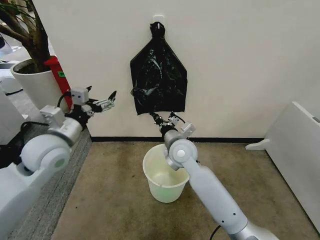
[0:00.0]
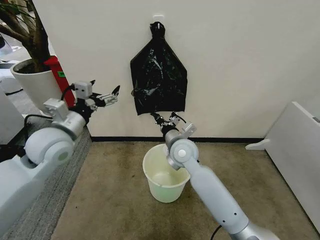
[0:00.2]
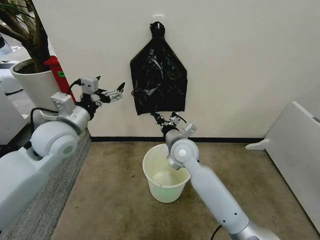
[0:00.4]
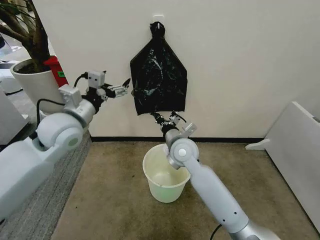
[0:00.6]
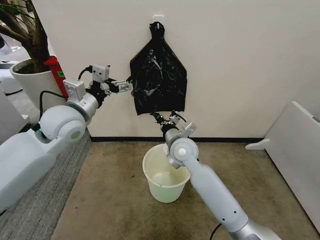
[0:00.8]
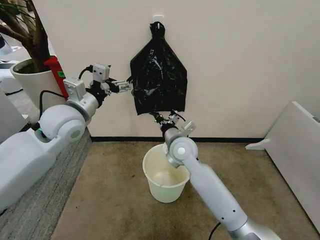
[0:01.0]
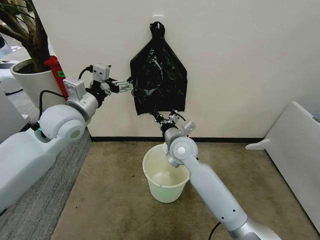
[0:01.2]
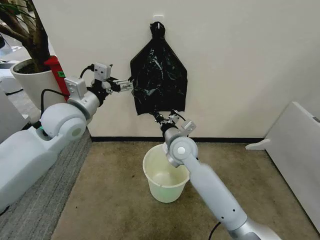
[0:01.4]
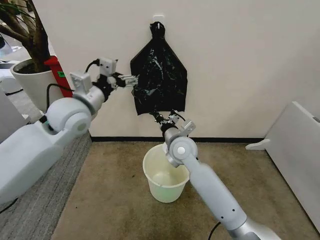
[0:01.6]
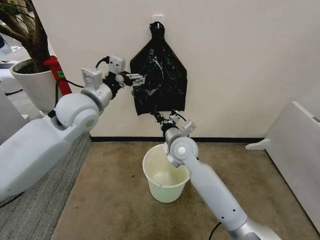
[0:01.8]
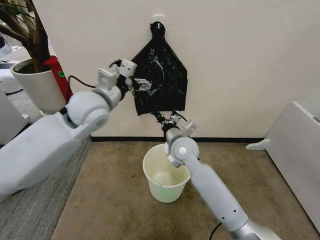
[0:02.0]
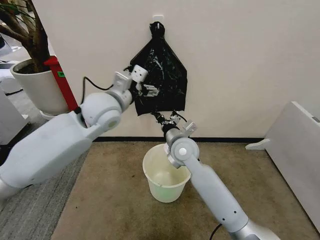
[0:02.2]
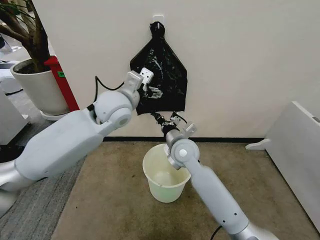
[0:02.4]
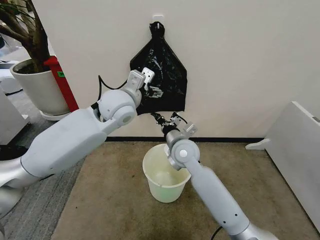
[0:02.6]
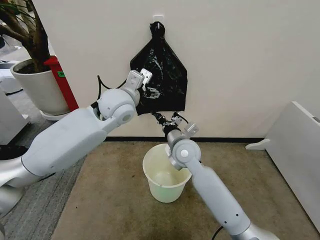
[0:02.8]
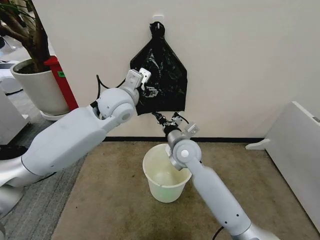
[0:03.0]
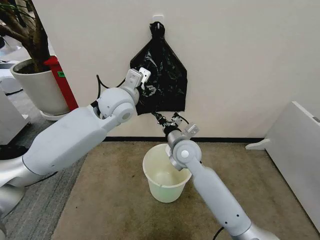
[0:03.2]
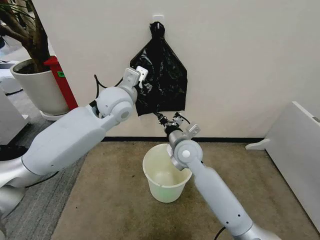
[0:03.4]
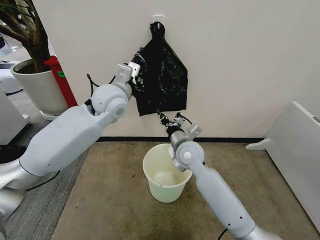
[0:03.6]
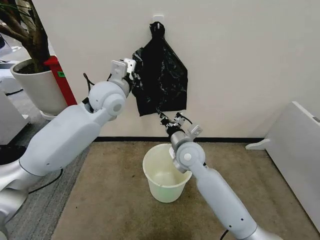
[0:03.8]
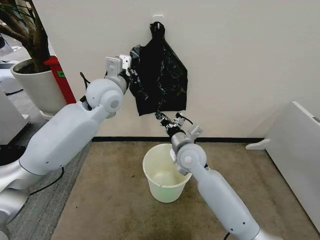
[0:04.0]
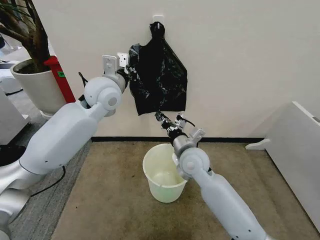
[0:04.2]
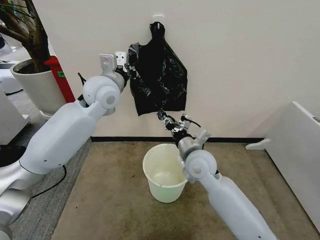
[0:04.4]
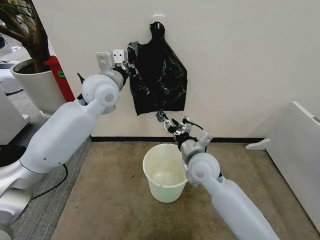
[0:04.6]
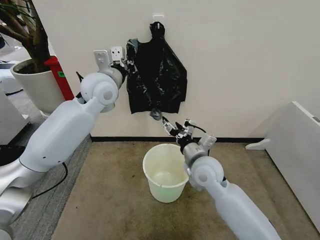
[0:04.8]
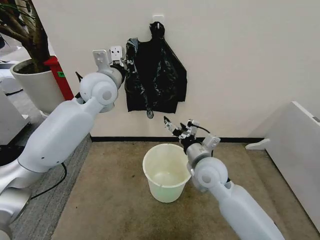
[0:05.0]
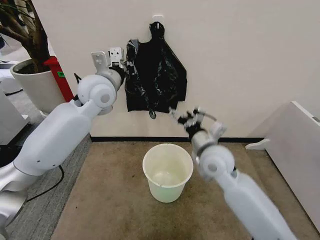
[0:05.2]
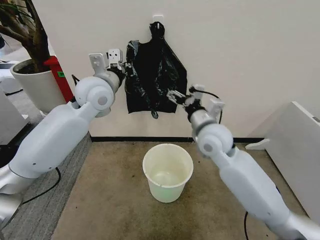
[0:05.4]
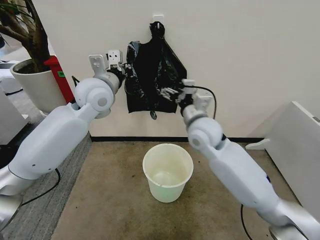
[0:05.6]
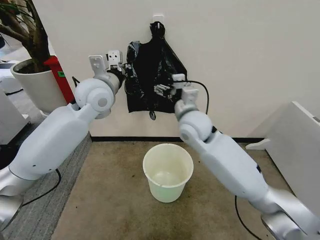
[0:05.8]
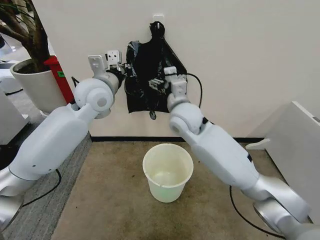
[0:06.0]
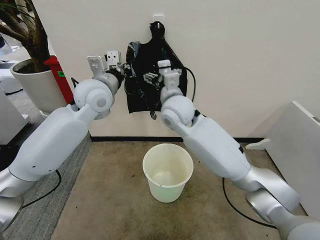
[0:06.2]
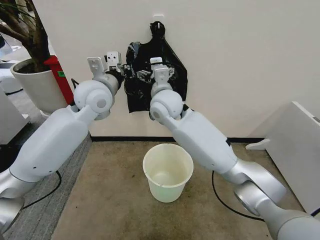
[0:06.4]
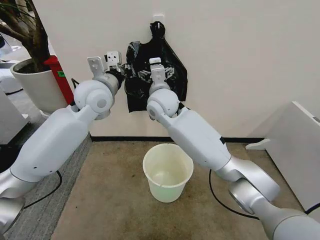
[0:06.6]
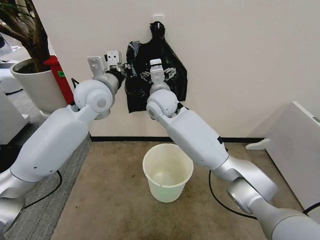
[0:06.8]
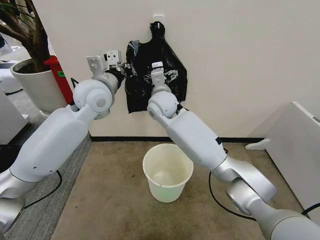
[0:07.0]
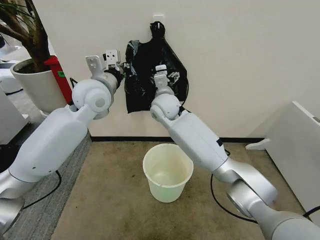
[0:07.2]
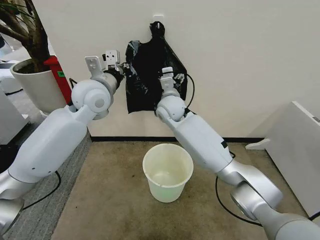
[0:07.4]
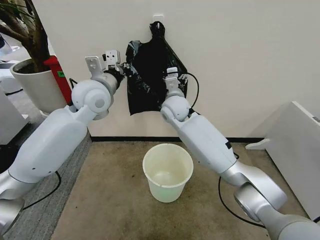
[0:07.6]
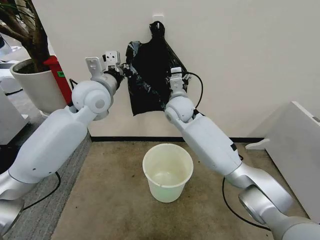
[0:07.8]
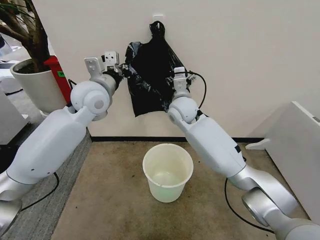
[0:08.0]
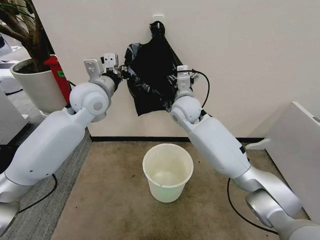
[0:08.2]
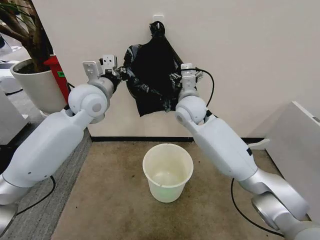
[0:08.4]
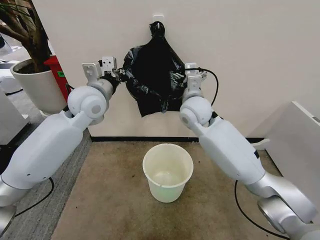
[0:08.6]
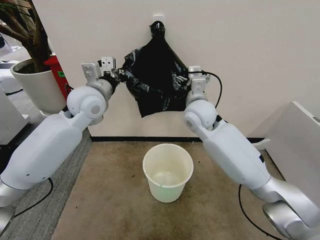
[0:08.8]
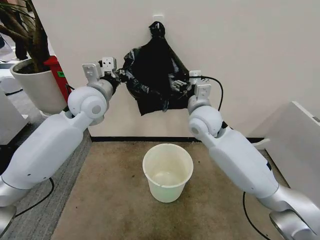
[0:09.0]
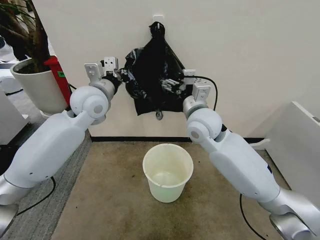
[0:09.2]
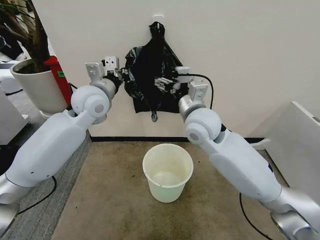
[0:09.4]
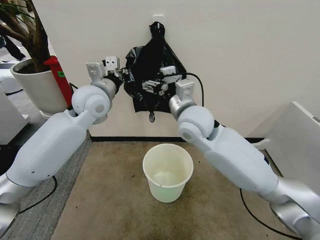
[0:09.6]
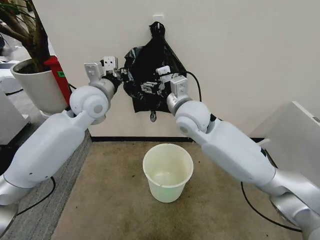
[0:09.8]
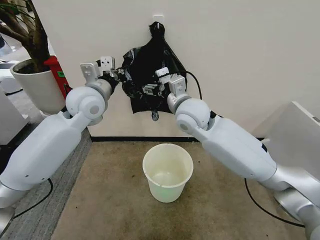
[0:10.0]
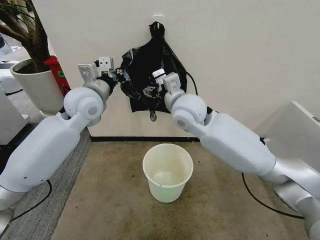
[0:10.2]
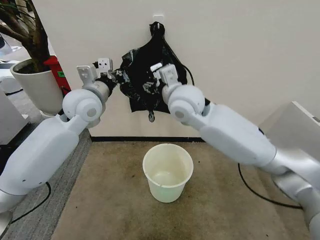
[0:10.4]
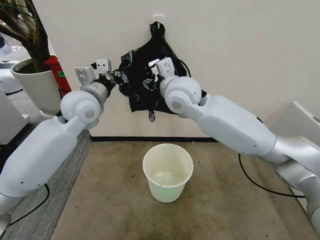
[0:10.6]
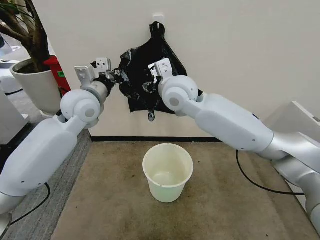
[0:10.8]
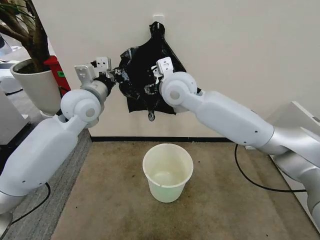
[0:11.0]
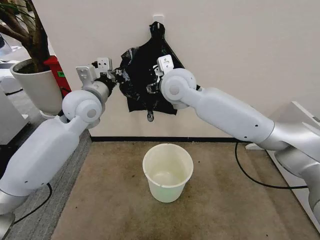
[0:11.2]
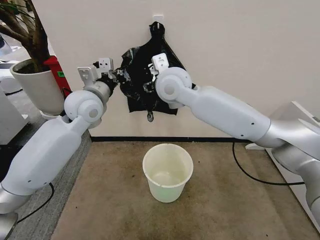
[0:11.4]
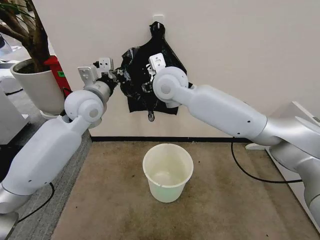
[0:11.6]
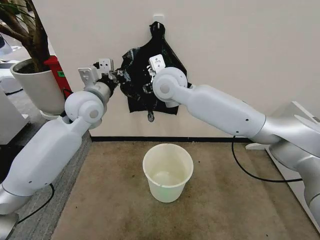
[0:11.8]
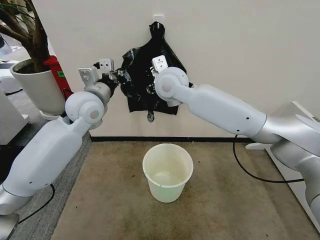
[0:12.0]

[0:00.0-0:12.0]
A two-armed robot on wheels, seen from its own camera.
Task of the whole recording: Place the garbage bag over the trash bin.
0:00.0 to 0:01.6: The left gripper moves forward, upward and to the right, approximately 10 cm.
0:01.6 to 0:03.0: The left gripper heads to the right, covering some 10 cm.
0:03.0 to 0:04.4: The left gripper shifts by about 5 cm, and closes up; the right gripper moves roughly 5 cm.
0:04.4 to 0:06.0: The right gripper heads upward and forward, covering some 15 cm, and opens.
0:06.0 to 0:07.6: The right gripper is displaced forward by some 10 cm.
0:07.6 to 0:09.0: The right gripper shifts approximately 10 cm backward and to the right.
0:09.0 to 0:10.4: The right gripper shifts some 10 cm upward and to the left.
0:10.4 to 0:12.0: The right gripper travels forward by some 5 cm.

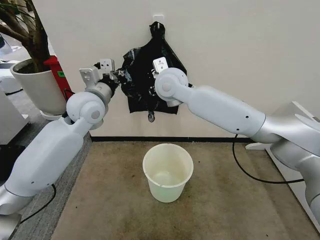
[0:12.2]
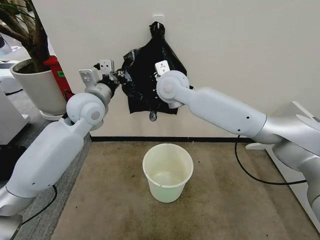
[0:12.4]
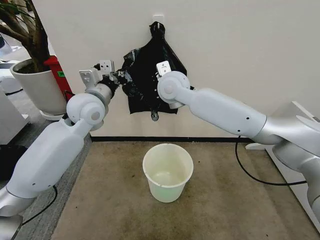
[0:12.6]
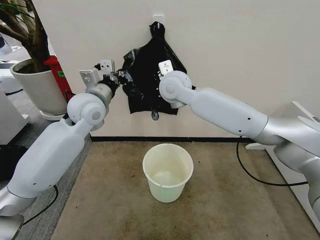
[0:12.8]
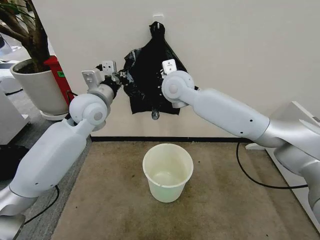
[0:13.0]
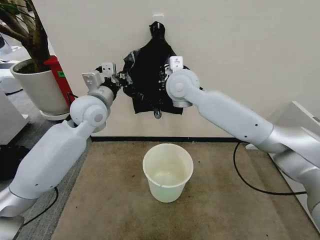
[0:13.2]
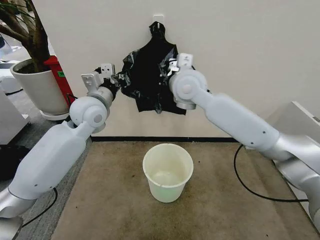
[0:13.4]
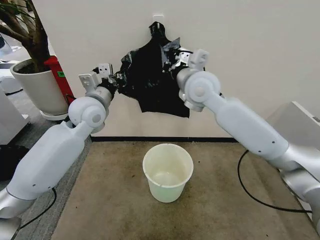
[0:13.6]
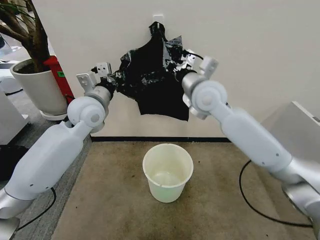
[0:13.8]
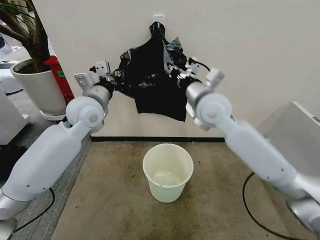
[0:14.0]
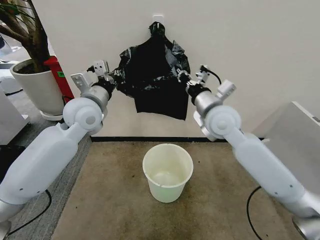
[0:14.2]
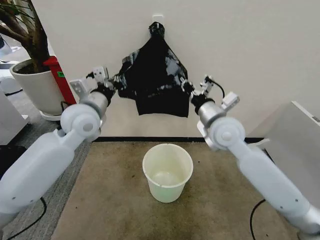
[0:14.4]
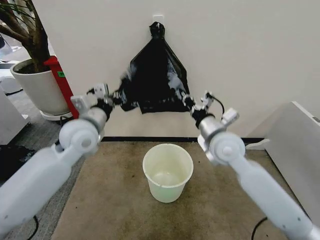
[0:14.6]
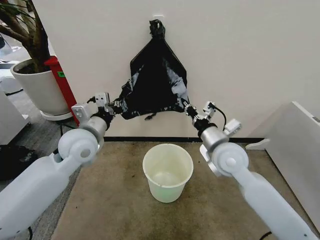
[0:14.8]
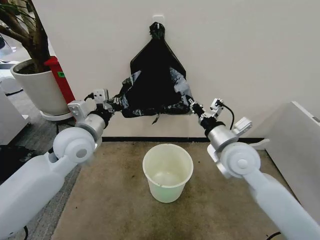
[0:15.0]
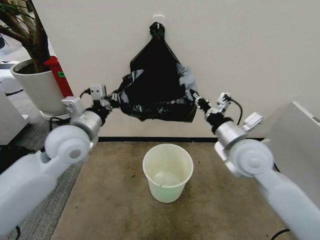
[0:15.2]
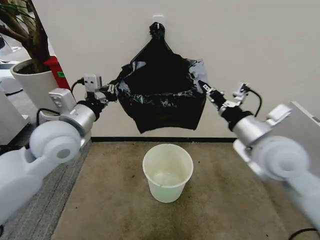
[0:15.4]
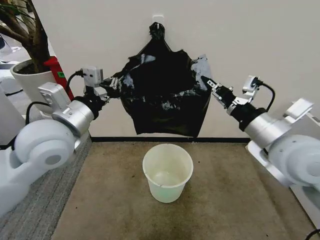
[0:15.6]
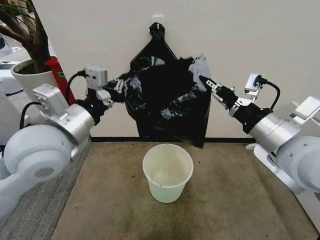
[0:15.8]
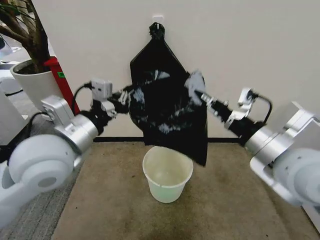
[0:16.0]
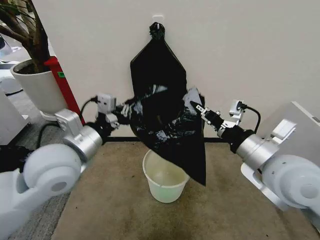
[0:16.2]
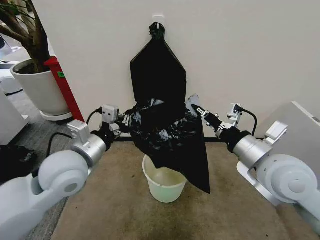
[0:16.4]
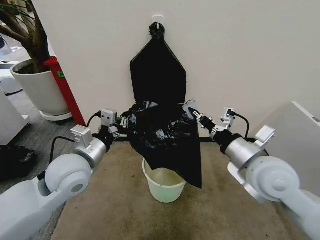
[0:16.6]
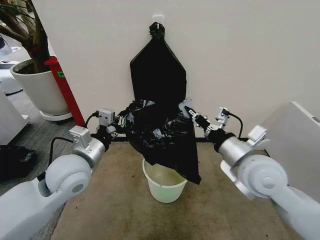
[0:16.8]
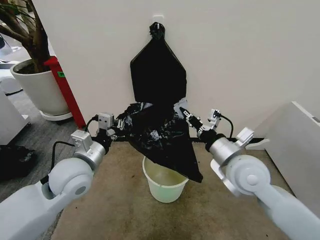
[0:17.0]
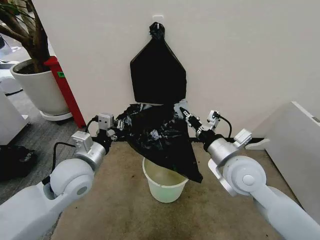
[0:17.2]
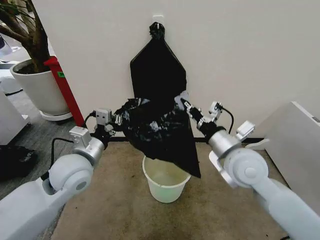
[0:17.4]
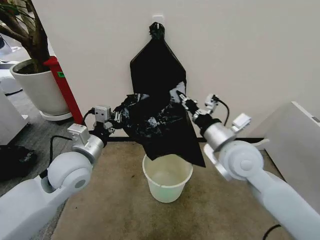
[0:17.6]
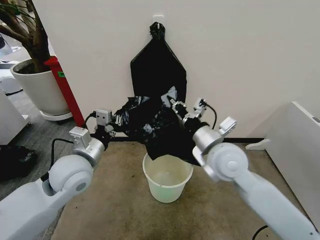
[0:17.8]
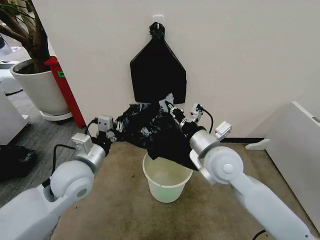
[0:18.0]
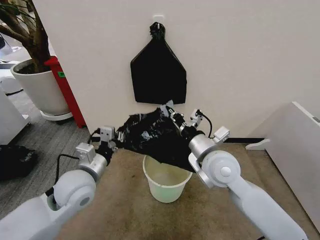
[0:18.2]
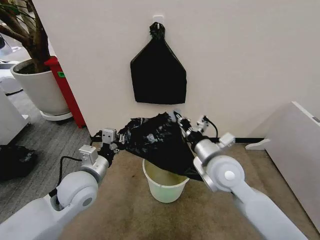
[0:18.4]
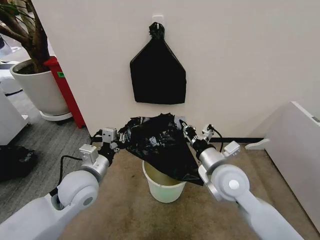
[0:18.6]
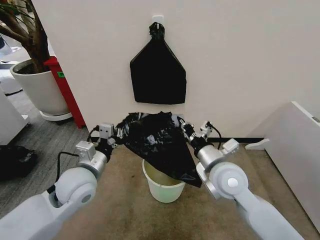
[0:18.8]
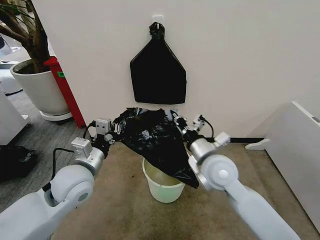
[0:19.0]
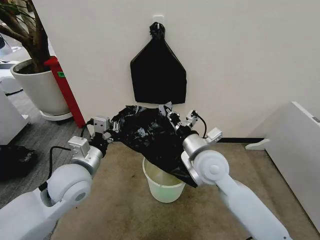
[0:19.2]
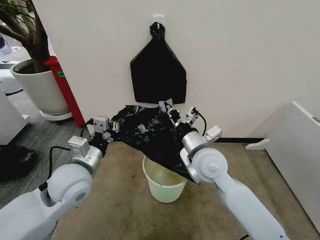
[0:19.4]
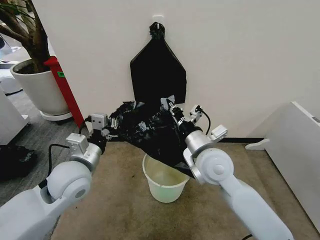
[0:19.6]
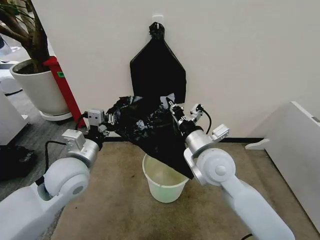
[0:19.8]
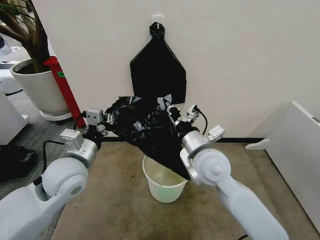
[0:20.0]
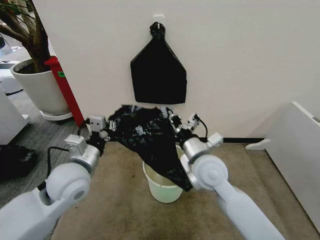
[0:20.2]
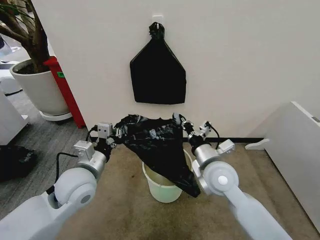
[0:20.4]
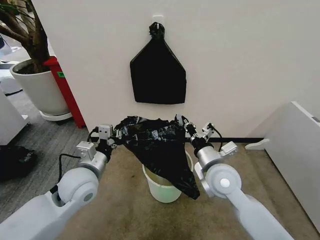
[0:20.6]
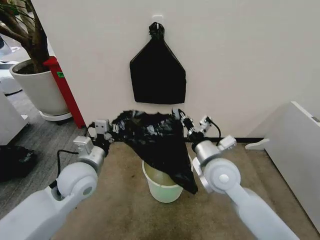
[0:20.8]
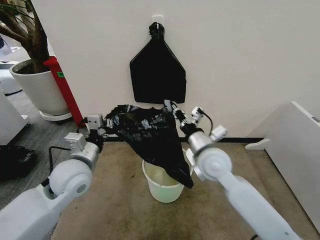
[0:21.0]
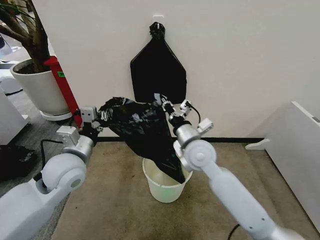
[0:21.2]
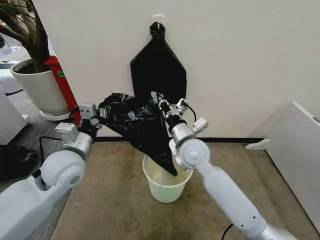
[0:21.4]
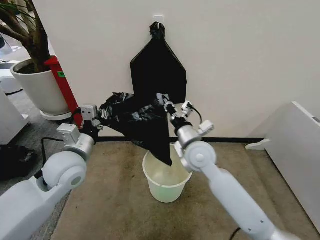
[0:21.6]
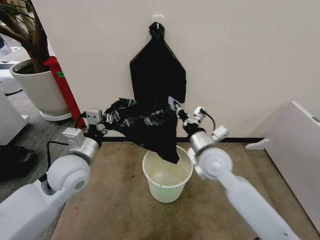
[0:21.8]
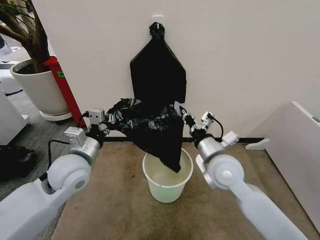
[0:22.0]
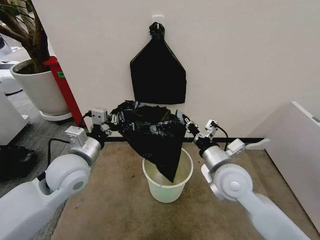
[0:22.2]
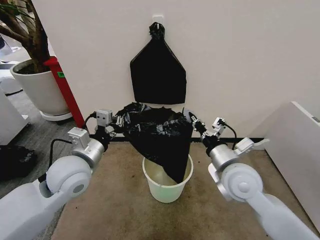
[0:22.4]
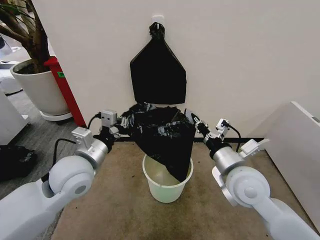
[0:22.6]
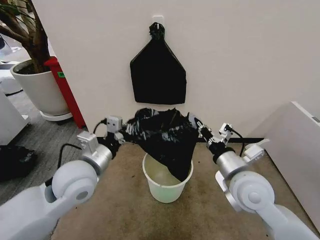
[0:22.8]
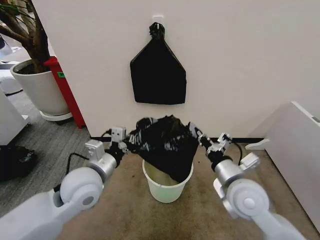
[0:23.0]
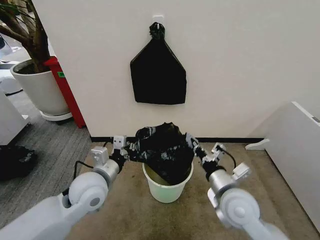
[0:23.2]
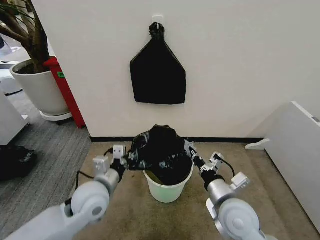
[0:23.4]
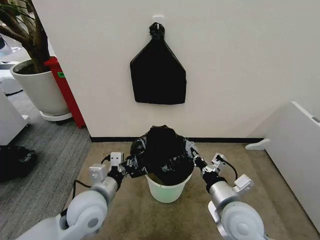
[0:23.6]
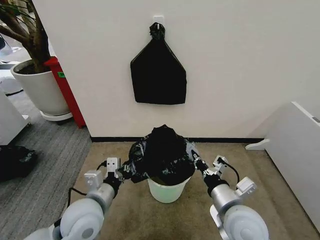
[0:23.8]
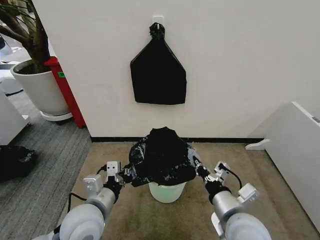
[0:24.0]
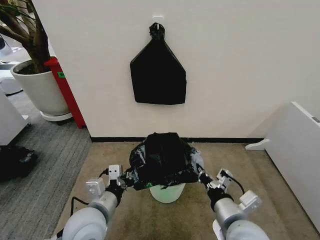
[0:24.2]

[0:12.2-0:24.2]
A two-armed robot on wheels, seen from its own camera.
Task of the whole recording: Place the garbage bag over the trash bin.
0:12.2 to 0:13.8: The right gripper goes roughly 10 cm to the right, and closes up.
0:13.8 to 0:15.2: The left gripper goes about 10 cm backward. The right gripper is displaced backward, downward and to the right by some 20 cm.
0:15.2 to 0:16.6: Both grippers move backward, about 5 cm. The right gripper moves about 10 cm upward and comes back. Meanwhile the left gripper goes upward and returns, about 10 cm each way.
0:16.6 to 0:18.2: The right gripper travels to the left by about 10 cm. Meanwhile the left gripper travels downward by about 5 cm.
0:18.2 to 0:19.8: There are only small adjustments of the grippers.
0:19.8 to 0:21.2: The right gripper heads forward, covering some 5 cm.
0:21.2 to 0:22.6: The right gripper heads backward and to the right, covering approximately 15 cm.
0:22.6 to 0:24.2: Both grippers move backward and downward, some 15 cm.
